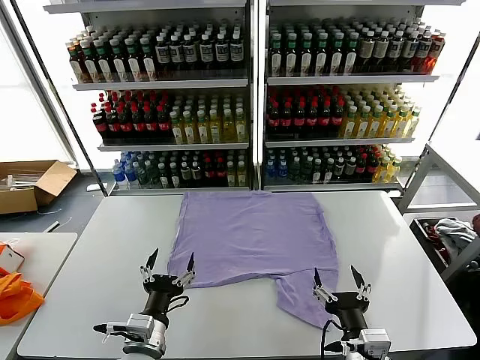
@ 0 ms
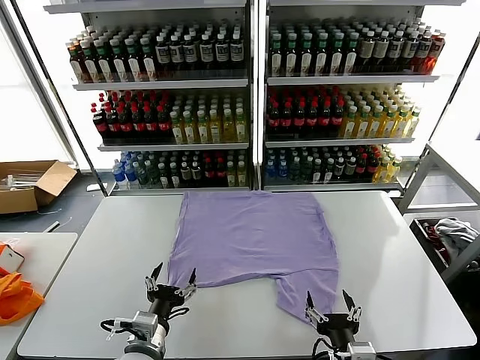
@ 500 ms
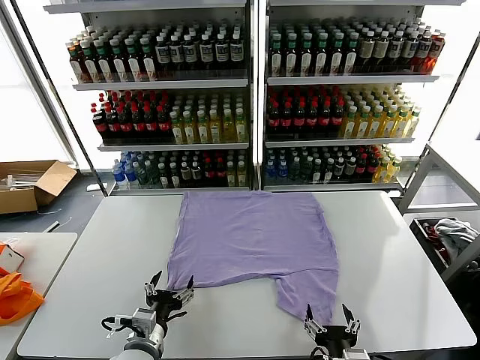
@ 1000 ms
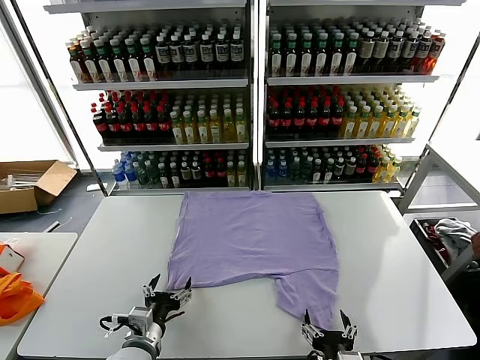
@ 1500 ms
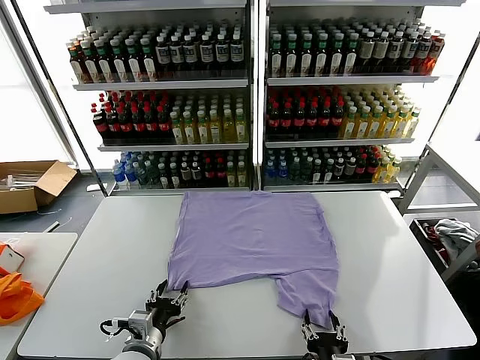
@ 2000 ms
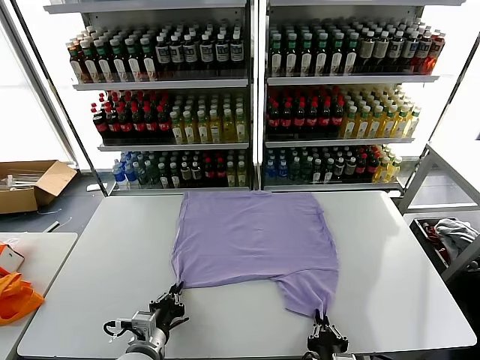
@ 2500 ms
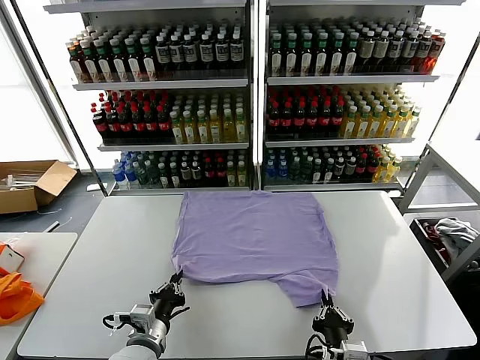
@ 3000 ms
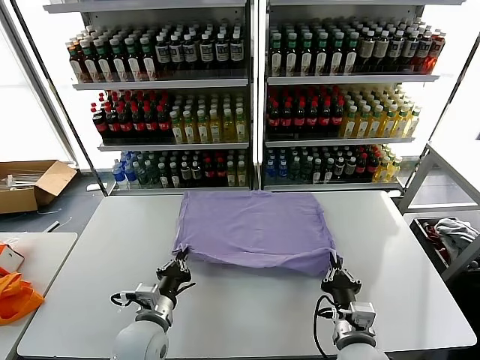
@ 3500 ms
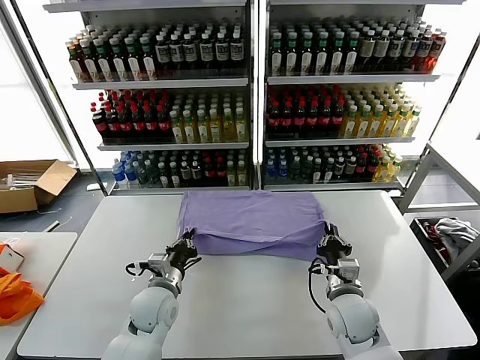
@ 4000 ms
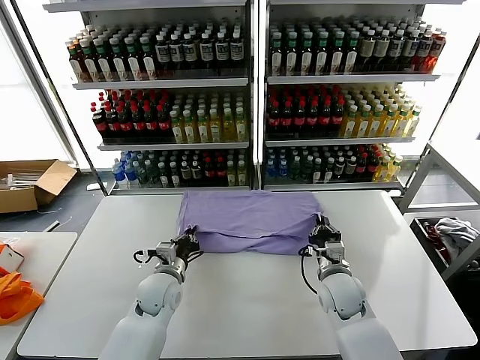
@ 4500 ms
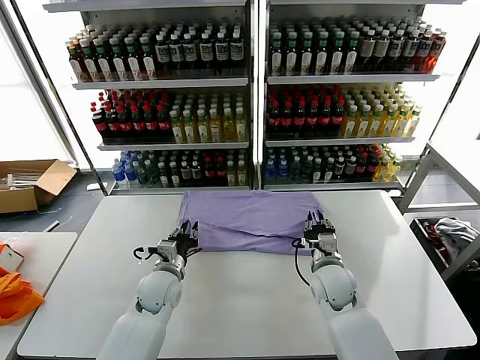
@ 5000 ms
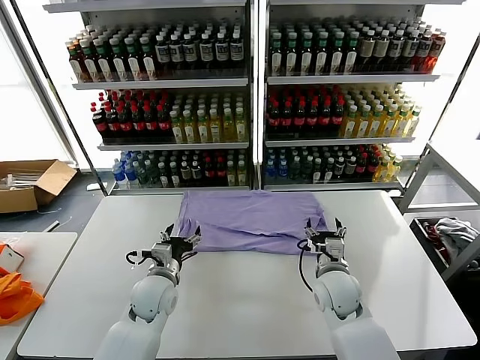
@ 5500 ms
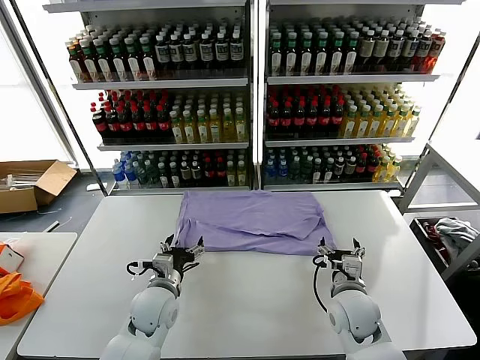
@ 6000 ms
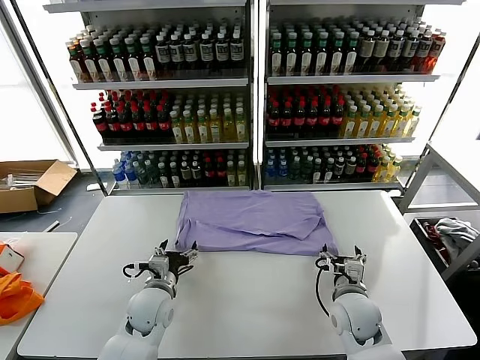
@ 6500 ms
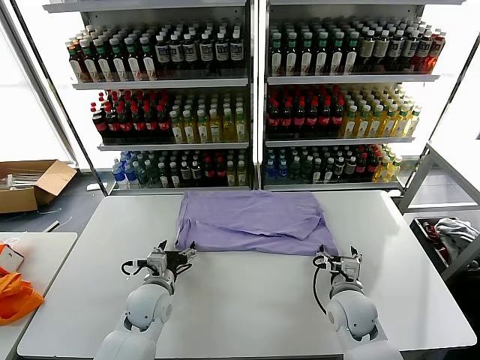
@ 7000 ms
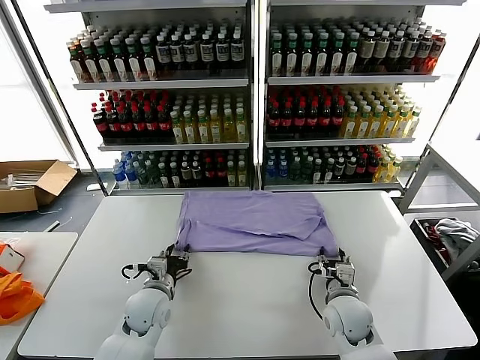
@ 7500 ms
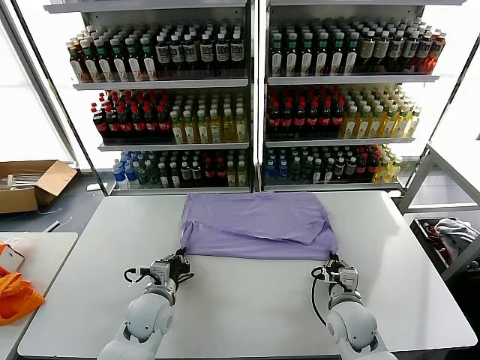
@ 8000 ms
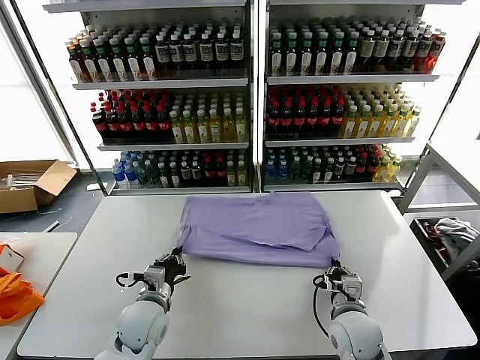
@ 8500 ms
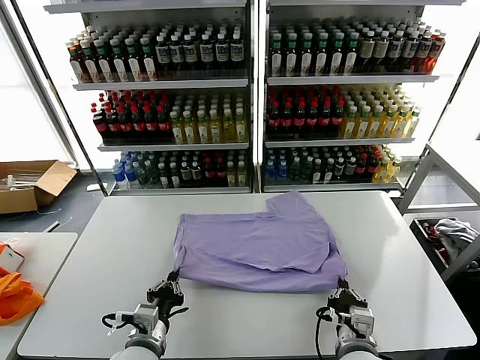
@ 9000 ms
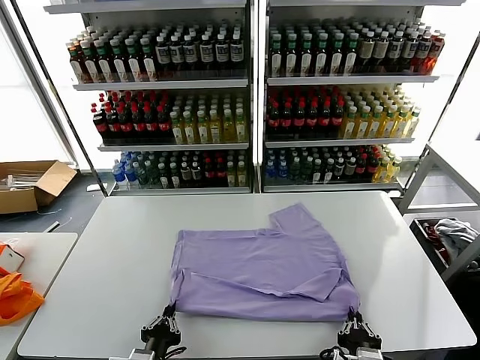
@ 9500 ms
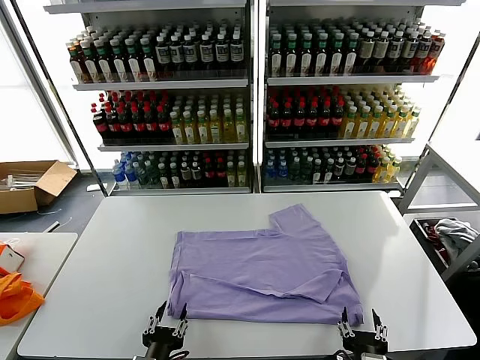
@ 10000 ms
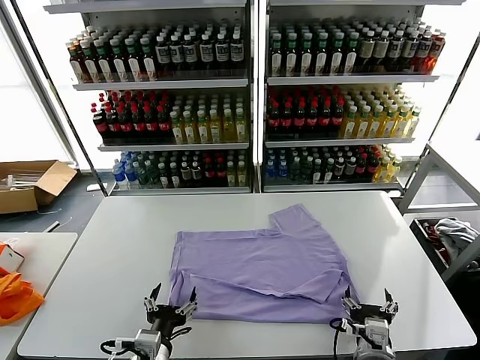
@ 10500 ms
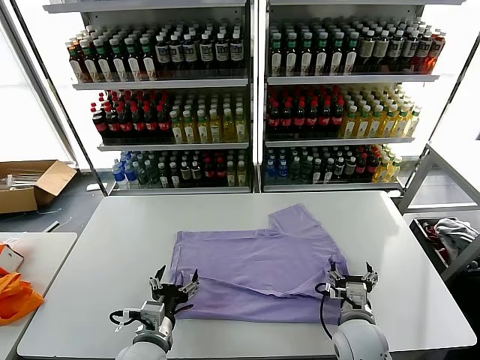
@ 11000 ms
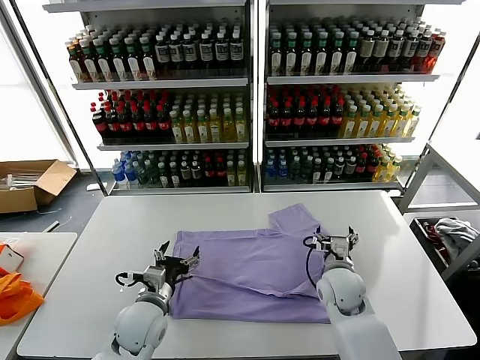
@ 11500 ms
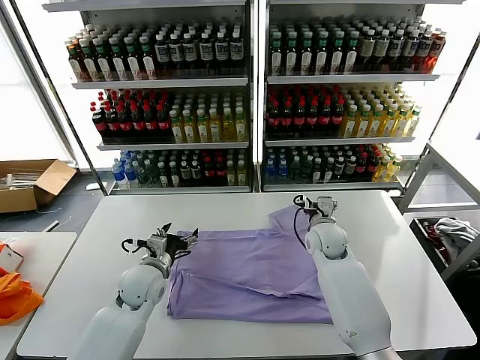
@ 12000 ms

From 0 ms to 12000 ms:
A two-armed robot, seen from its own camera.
Task of the whole recording: fold and organize the clothes.
Step, from 0 ms to 2500 ms: use both grippers simultaneously to clamp the lower edge of the clothing fabric.
Step, from 3000 ms to 5000 ms: use both grippers to drag the lower edge of the fabric forward and fold it over the upper edge.
Step, from 5500 ms to 10000 ms: Drag the clothes downward with both gripper.
From 2000 ms to 4000 ms: The left gripper is displaced forward by about 15 cm, and closes. The right gripper moves forward, approximately 20 cm, and closes up.
From 4000 ms to 6000 ms: The right gripper opens. The left gripper opens.
From 6000 ms to 8000 ms: The left gripper closes up; the right gripper closes its fingers.
From 8000 ms to 10000 ms: The grippers both shift backward by approximately 20 cm. The right gripper opens its fingers. The left gripper opens its fingers.
From 10000 ms to 12000 ms: Both grippers travel together forward, roughly 30 cm. The left gripper opens its fingers.

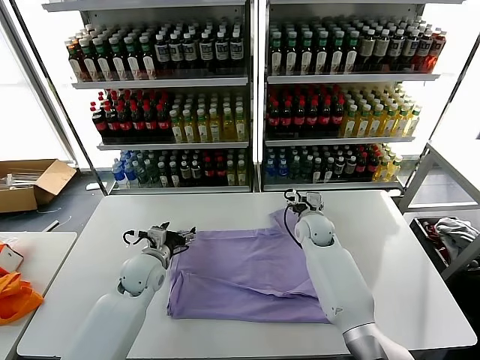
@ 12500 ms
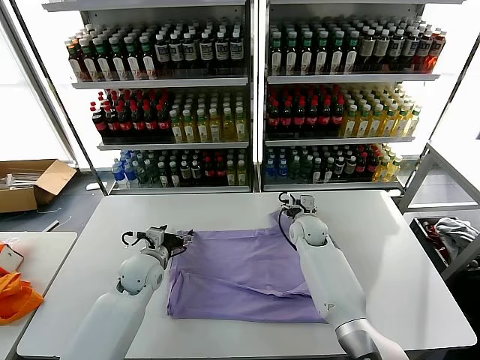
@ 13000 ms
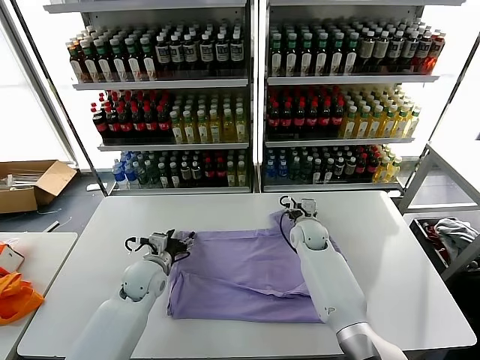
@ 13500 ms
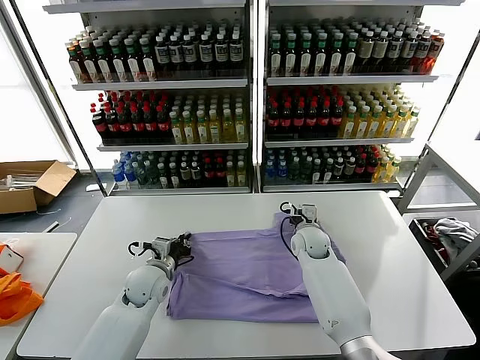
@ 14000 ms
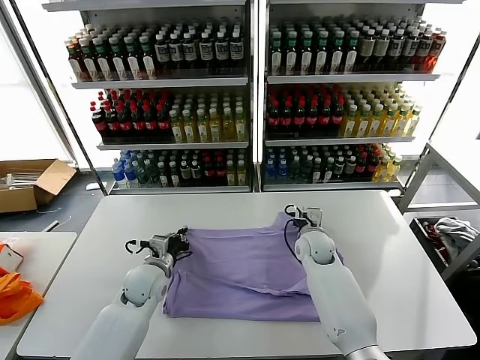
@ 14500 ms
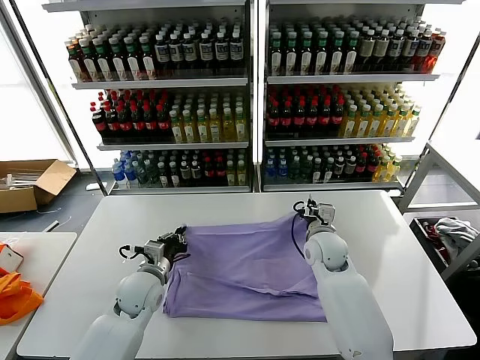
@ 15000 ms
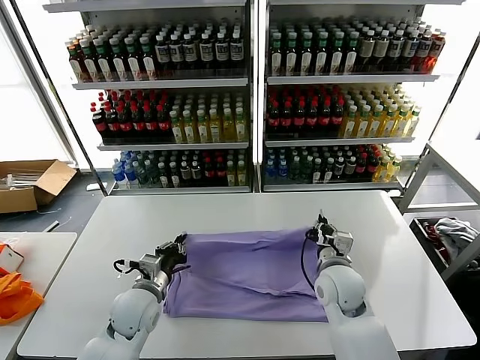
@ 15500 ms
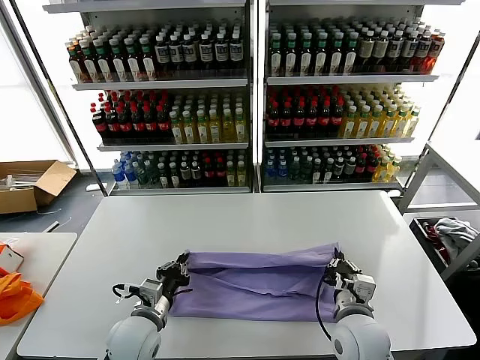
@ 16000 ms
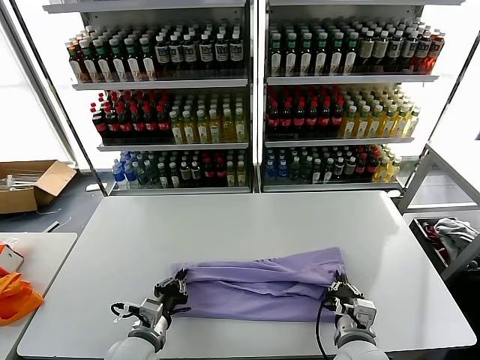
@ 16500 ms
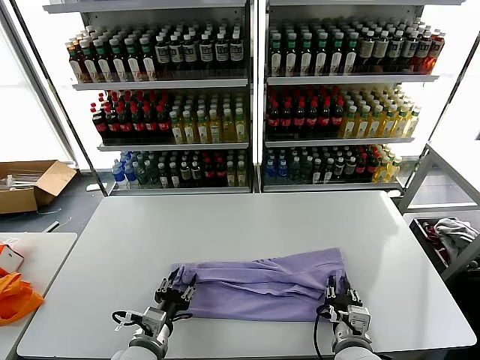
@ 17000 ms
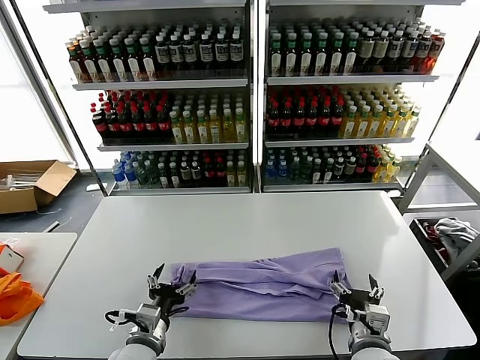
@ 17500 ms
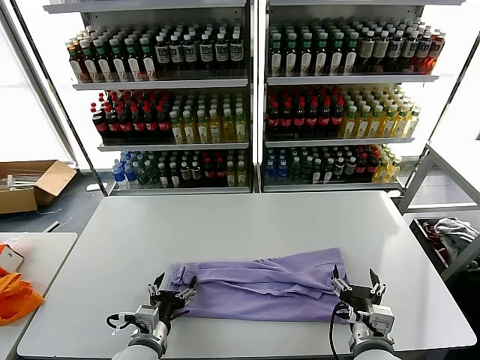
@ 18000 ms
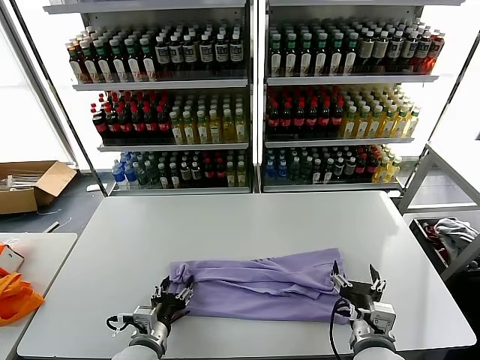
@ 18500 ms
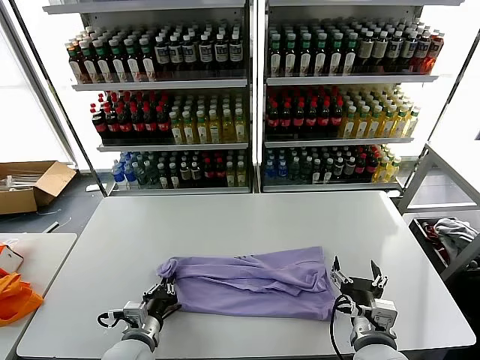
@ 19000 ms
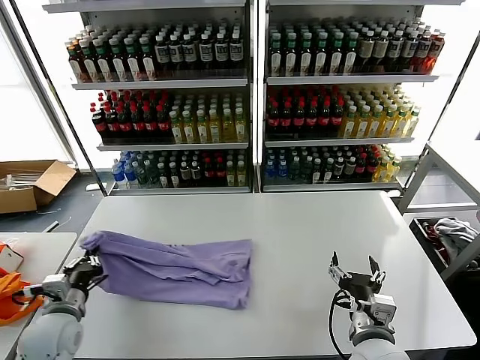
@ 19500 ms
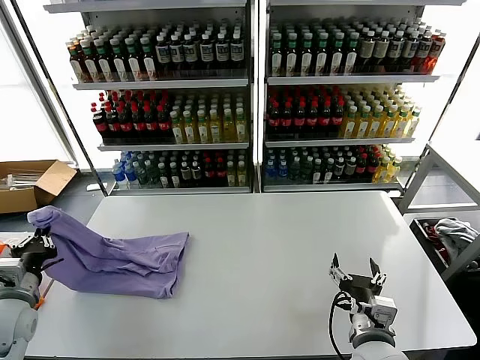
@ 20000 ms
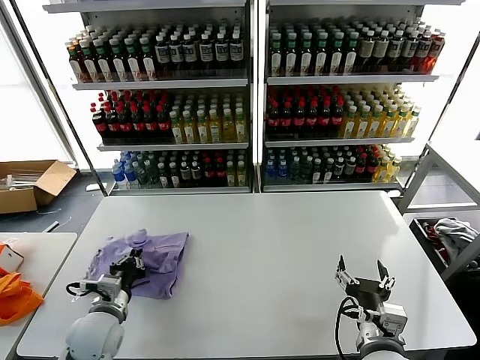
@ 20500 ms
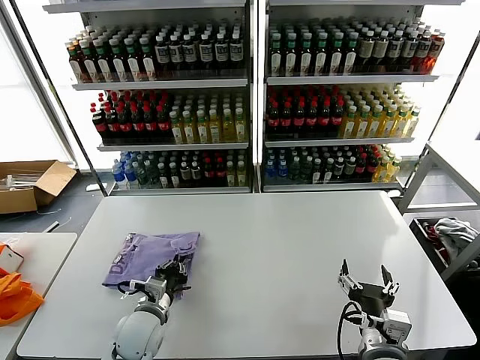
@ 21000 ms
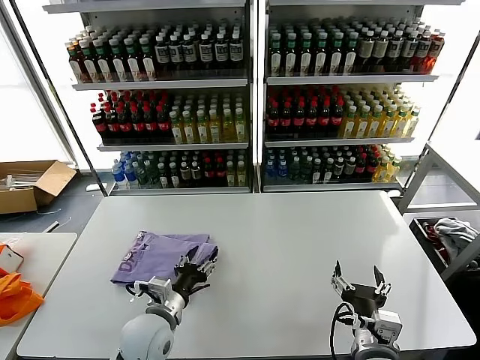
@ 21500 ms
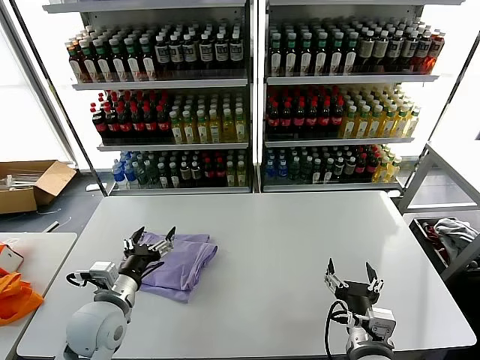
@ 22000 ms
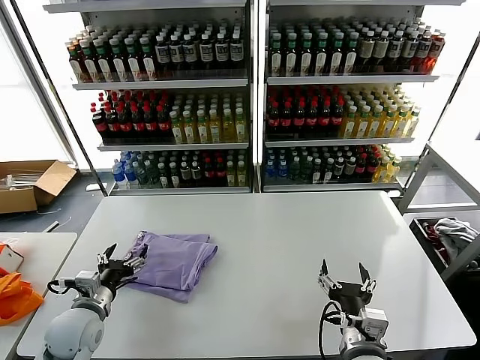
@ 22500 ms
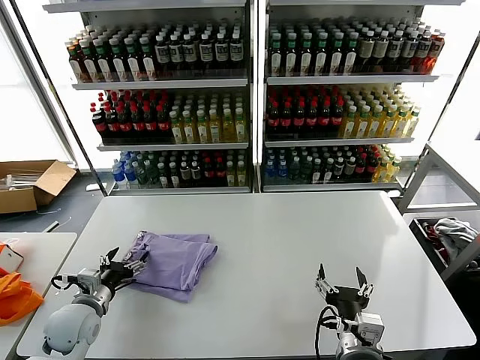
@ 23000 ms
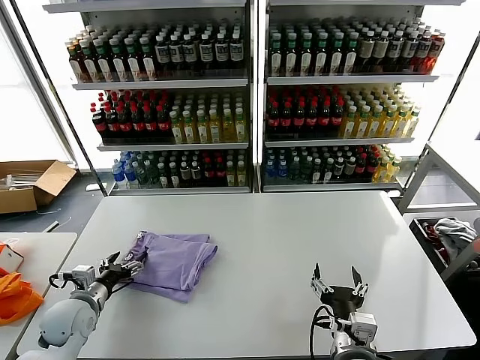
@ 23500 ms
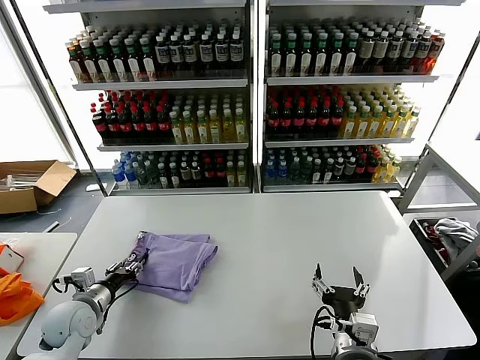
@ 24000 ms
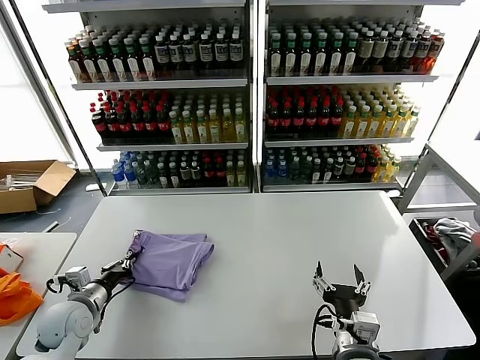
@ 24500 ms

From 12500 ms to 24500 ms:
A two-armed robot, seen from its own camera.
Task of the whole recording: fold and organize the clothes.
Step, from 12500 ms to 14500 ms: use both grippers simultaneously to clamp the upper edge of the clothing fabric.
Step, from 15000 ms to 17000 ms: use both grippers to drag the upper edge of the fabric backward and fold it over the lower edge.
Step, from 18000 ms to 19000 ms: use the left gripper to clamp the left edge of the fabric.
Step, from 19500 ms to 21000 ms: use the left gripper to drag the left edge of the fabric to the left and folds it over the right edge.
From 12500 ms to 14500 ms: The left gripper closes, while the right gripper closes.
From 14500 ms to 16500 ms: The right gripper is displaced backward by some 30 cm. The left gripper heads backward, covering approximately 15 cm.
From 16500 ms to 18500 ms: The right gripper opens. Meanwhile the left gripper opens.
From 18500 ms to 20500 ms: The left gripper shifts about 10 cm to the left and forward, and closes up.
From 20500 ms to 22500 ms: The left gripper goes to the right and returns, roughly 10 cm each way, and opens.
From 22500 ms to 24500 ms: The left gripper changes place by some 5 cm, and closes.

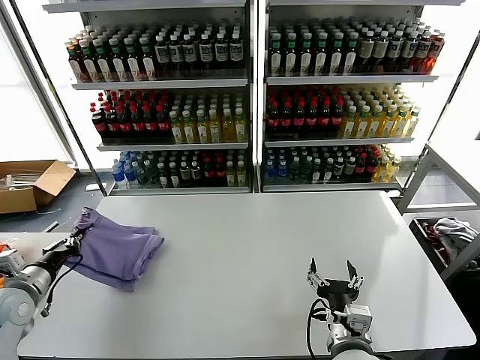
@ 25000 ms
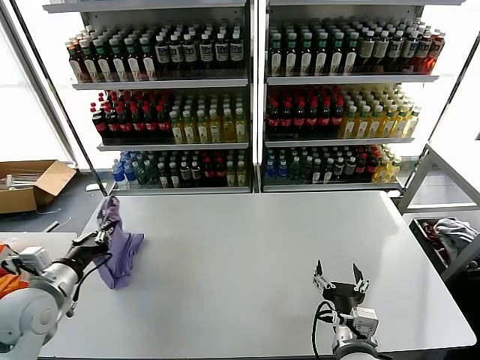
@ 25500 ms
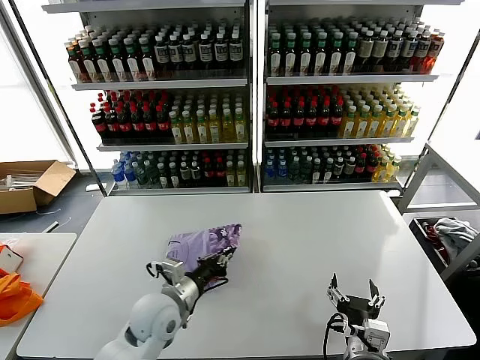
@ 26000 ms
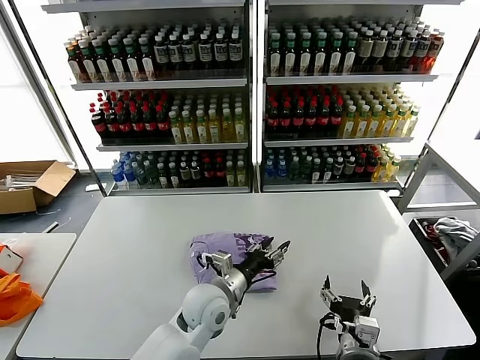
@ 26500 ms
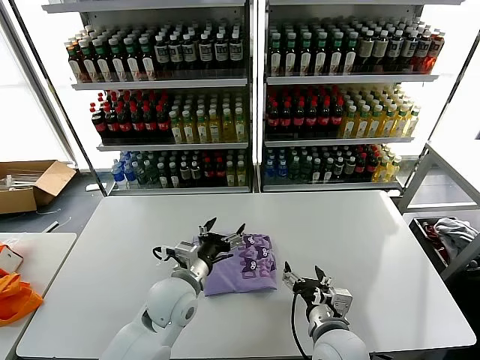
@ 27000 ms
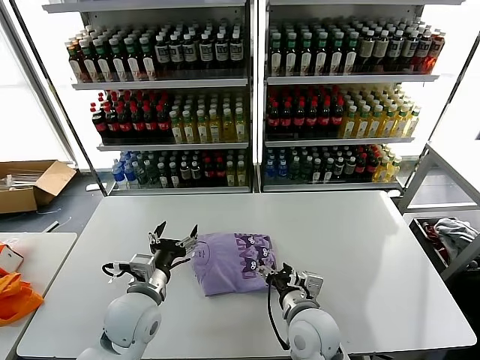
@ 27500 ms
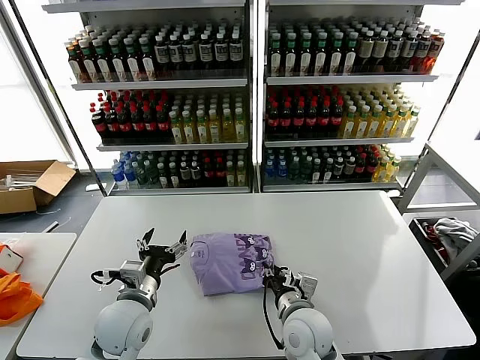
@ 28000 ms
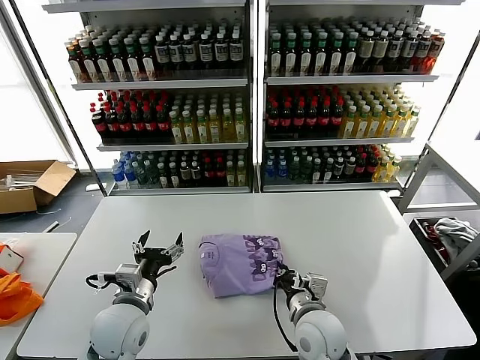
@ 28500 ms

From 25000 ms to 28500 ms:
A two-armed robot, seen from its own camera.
Task of the whole recording: fold and organize the clothes.
From 25000 ms to 27000 ms: The left gripper is displaced to the right by some 30 cm, and opens its fingers.
From 27000 ms to 28500 ms: The right gripper shifts by approximately 5 cm, and closes. Meanwhile the left gripper is displaced to the left and backward by roughly 10 cm.
